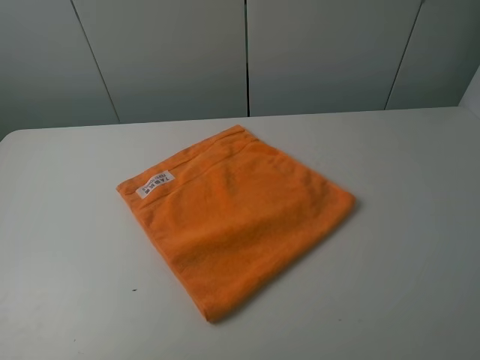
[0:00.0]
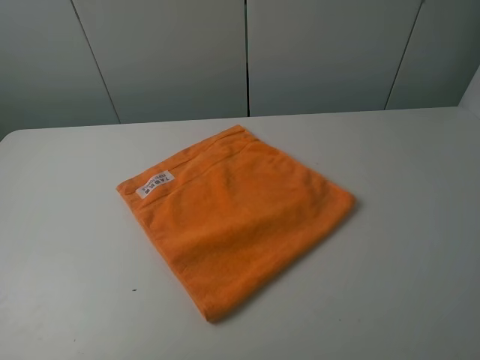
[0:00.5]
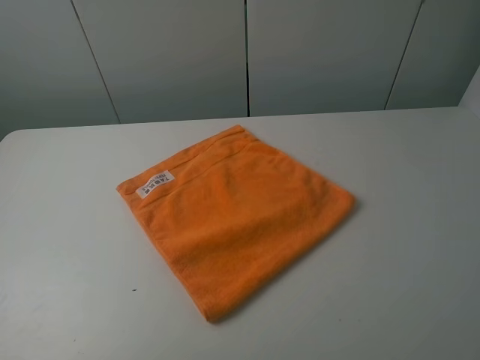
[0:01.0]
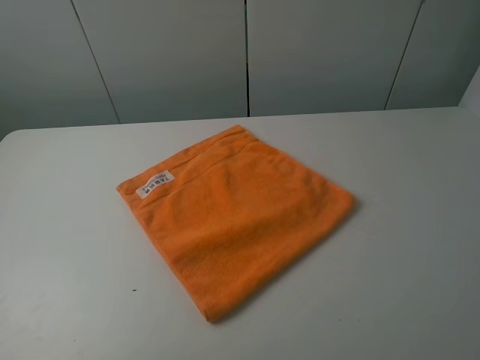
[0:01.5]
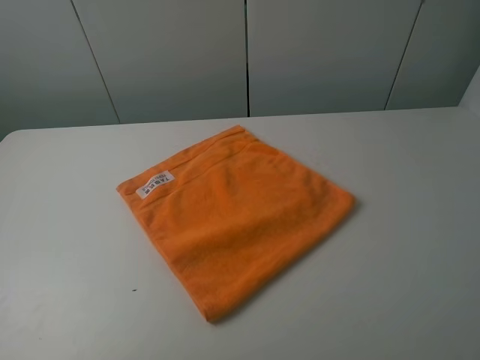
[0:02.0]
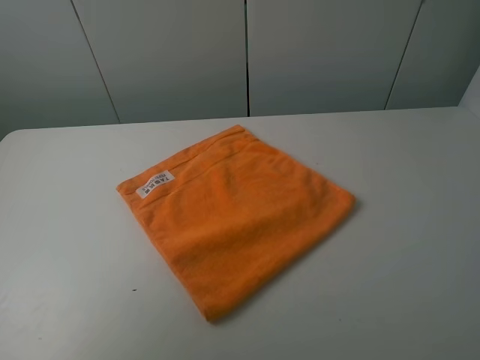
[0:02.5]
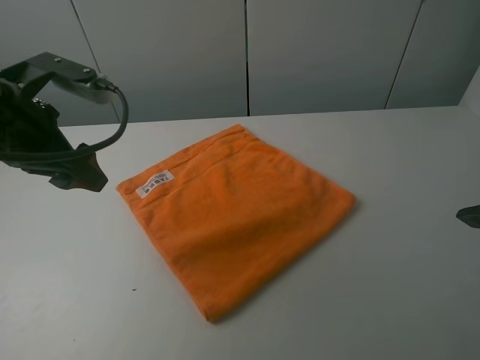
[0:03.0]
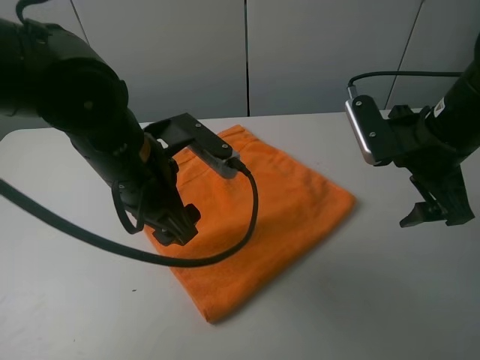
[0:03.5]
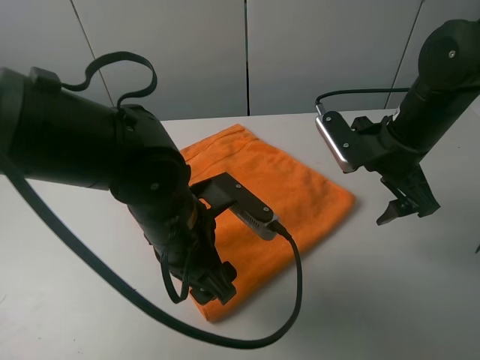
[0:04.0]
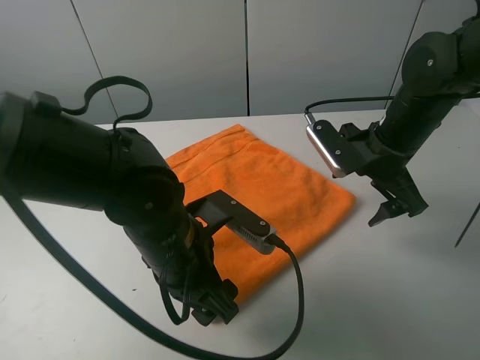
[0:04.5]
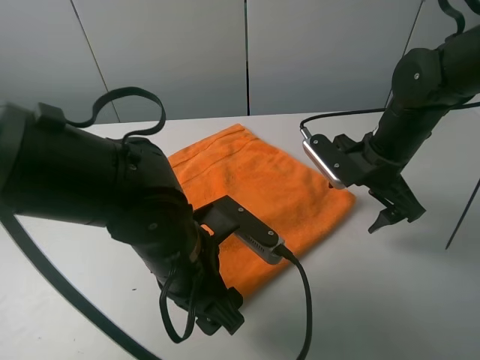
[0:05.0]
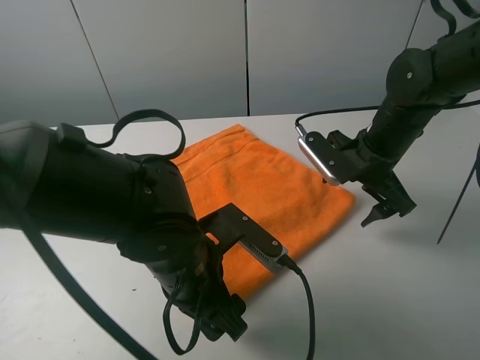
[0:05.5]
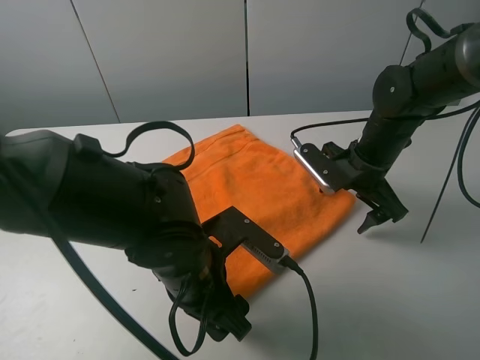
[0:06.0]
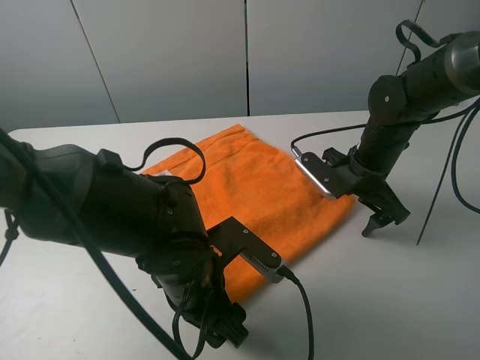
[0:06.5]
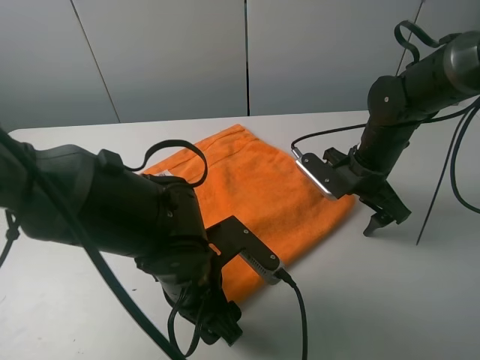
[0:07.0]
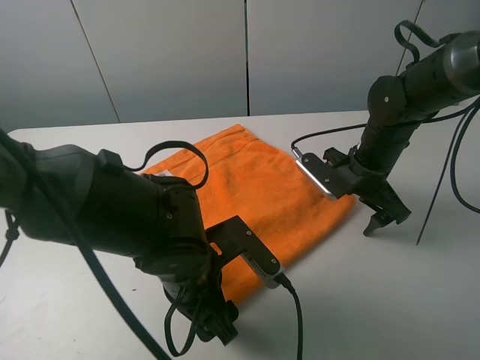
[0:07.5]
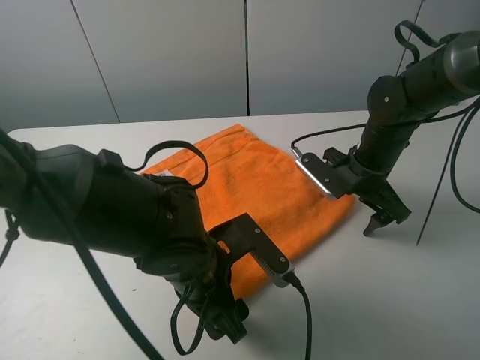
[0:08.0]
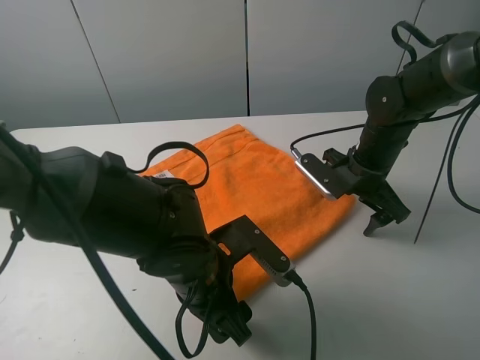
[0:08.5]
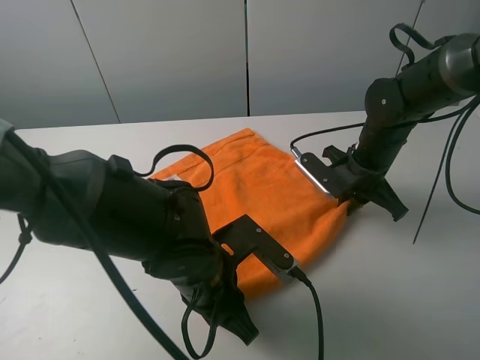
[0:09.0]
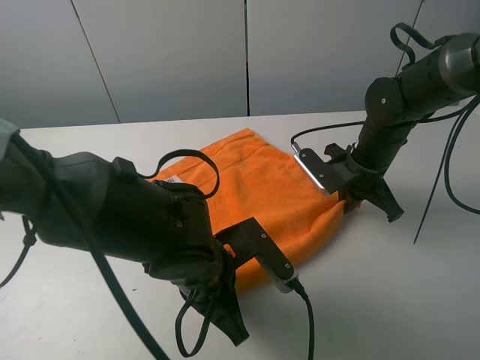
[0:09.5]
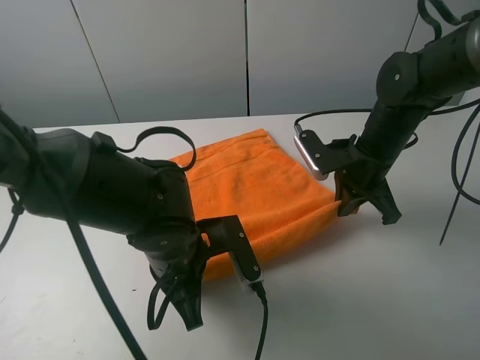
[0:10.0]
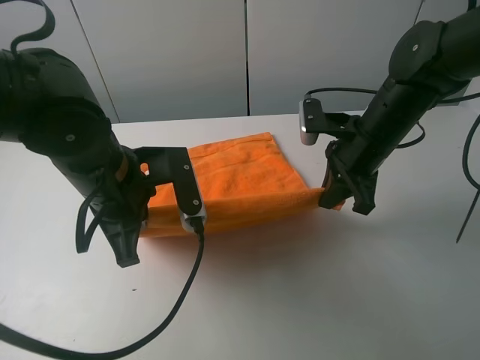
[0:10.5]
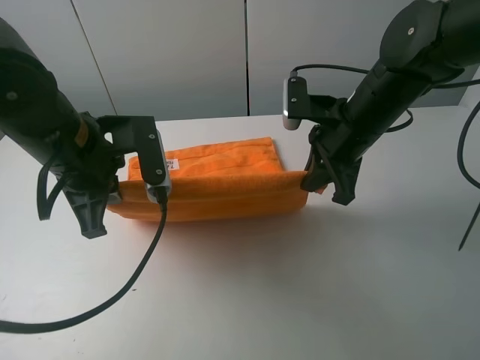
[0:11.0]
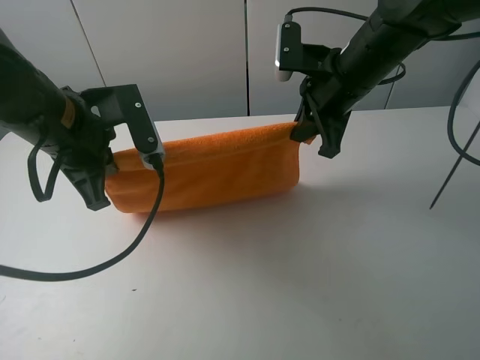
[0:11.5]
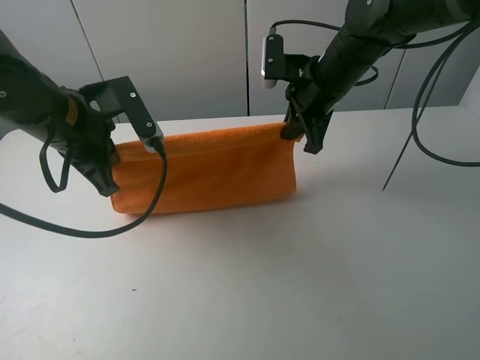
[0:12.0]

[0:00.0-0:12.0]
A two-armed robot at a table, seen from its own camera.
Task of the whole recording: fold the towels on the table.
Step, 0:00.0 to 0:09.5: Grasp the orange towel with the left gripper.
0:02.0 to 0:04.0: The left gripper moves to the right, forward and downward, some 35 cm. The right gripper goes some 30 cm forward.
0:04.0 to 0:06.0: The right gripper travels downward by approximately 5 cm.
0:06.0 to 0:08.0: The grippers make only small movements.
0:08.0 to 0:10.0: The left gripper closes; the right gripper closes up.
0:10.0 to 0:12.0: The right gripper moves upward, forward and to the left, about 10 cm. Meanwhile the left gripper moves to the left, upward and forward, approximately 20 cm.

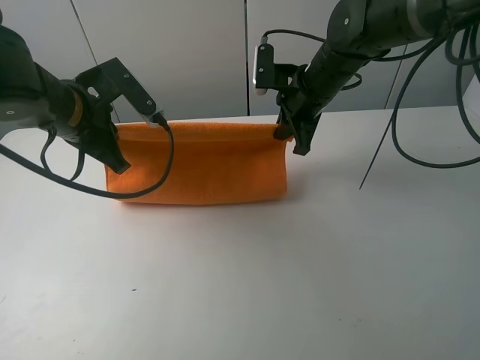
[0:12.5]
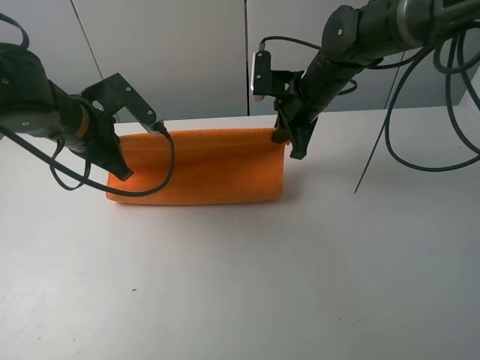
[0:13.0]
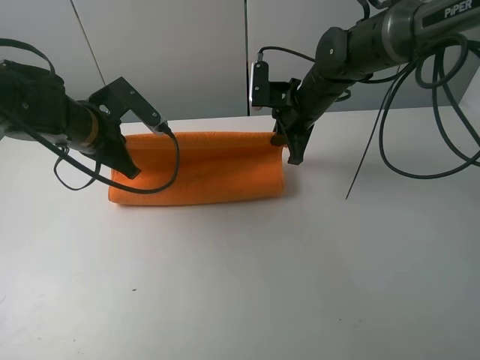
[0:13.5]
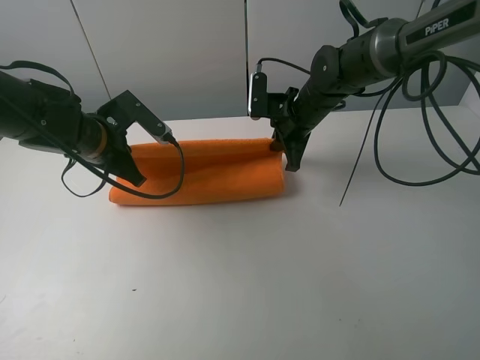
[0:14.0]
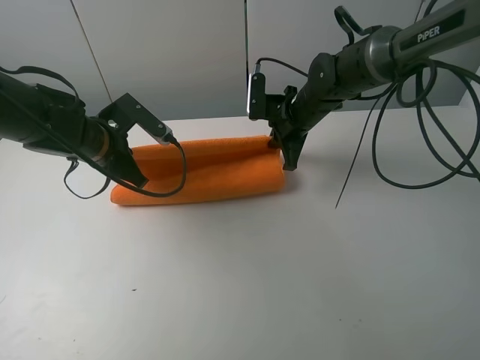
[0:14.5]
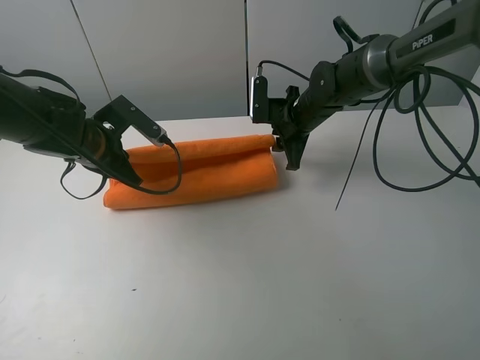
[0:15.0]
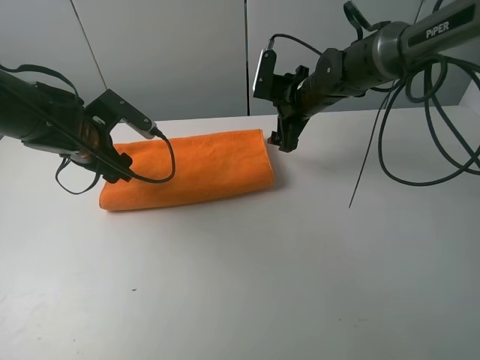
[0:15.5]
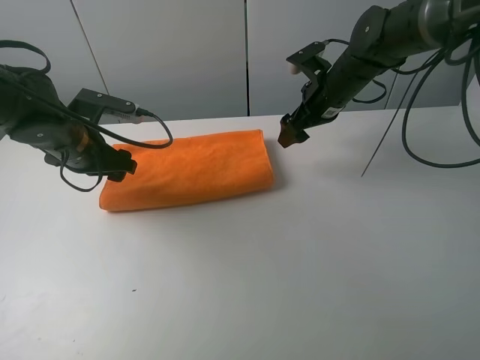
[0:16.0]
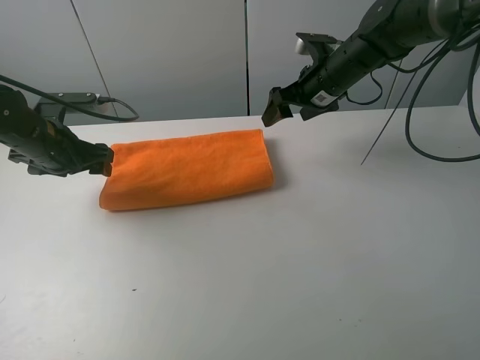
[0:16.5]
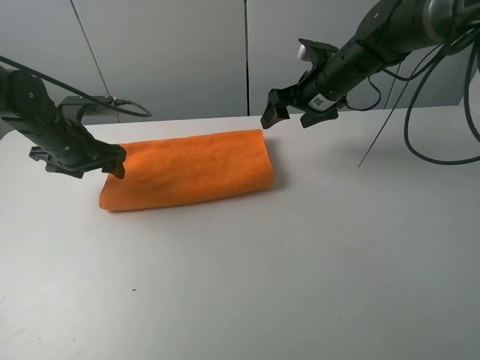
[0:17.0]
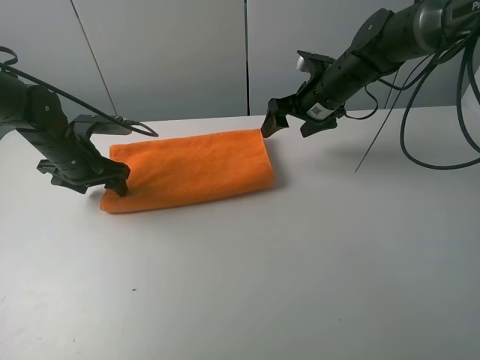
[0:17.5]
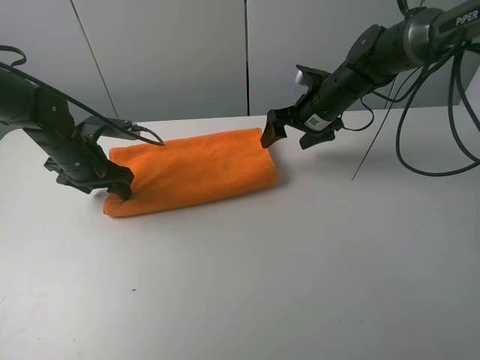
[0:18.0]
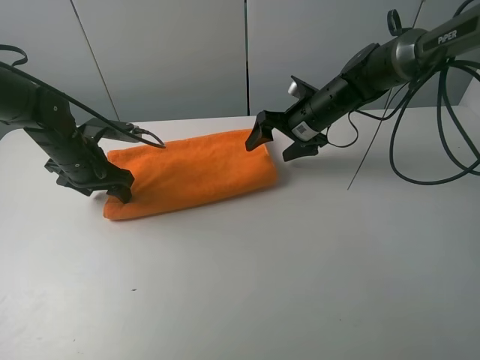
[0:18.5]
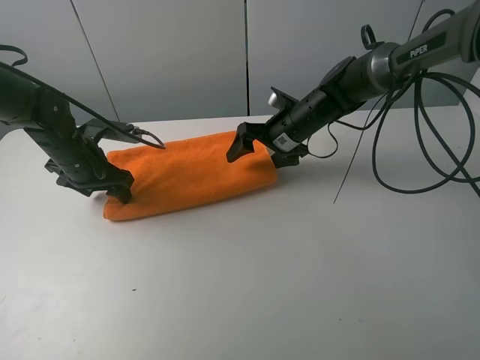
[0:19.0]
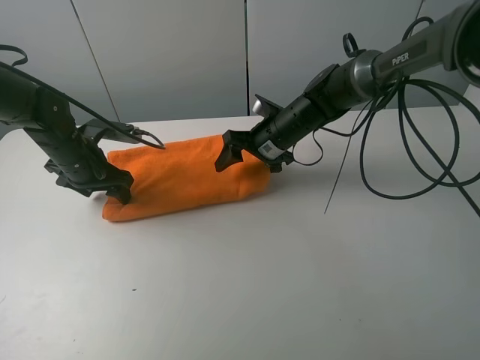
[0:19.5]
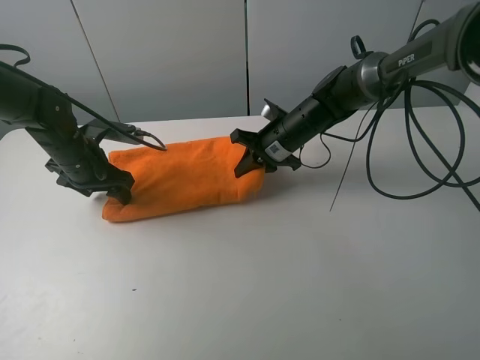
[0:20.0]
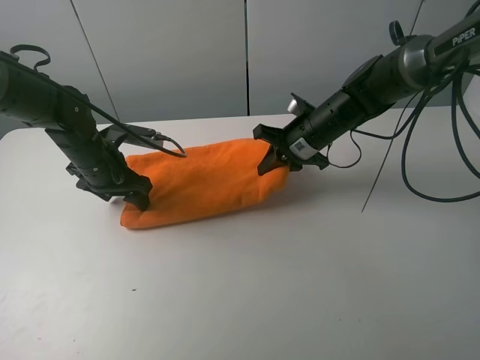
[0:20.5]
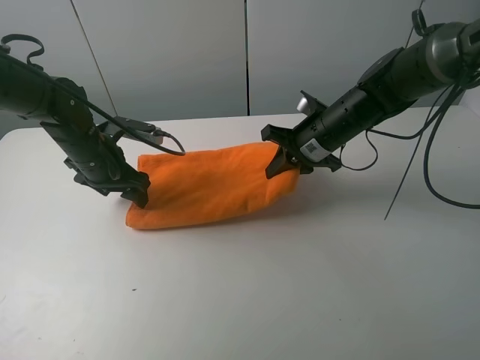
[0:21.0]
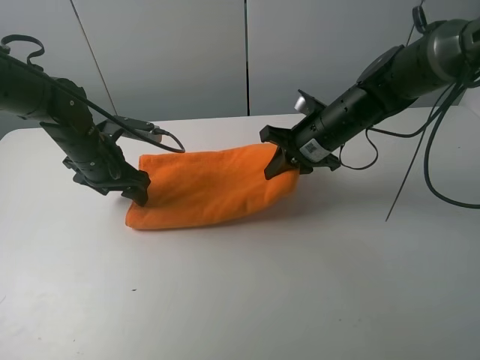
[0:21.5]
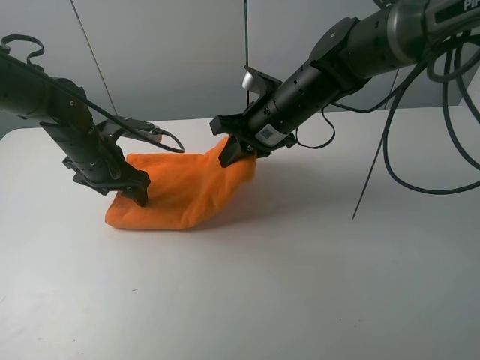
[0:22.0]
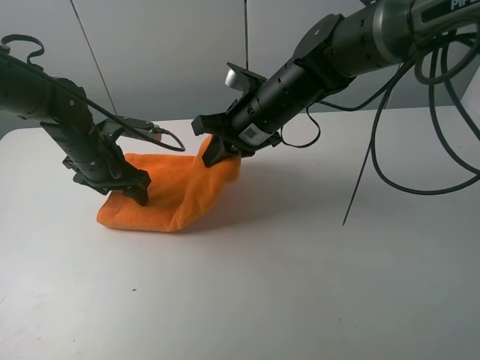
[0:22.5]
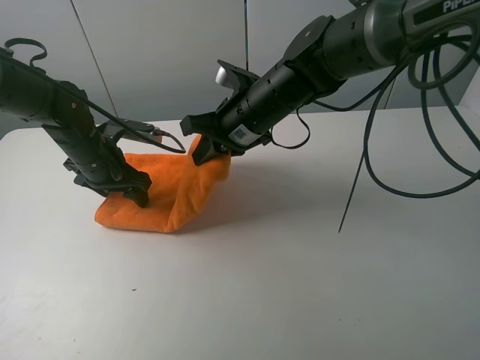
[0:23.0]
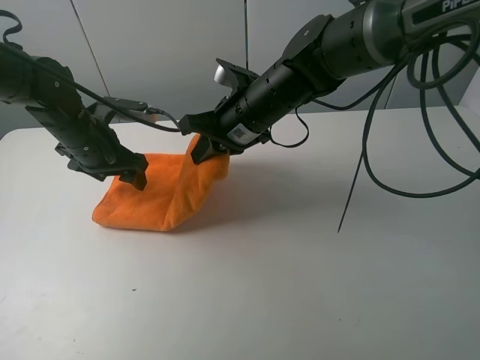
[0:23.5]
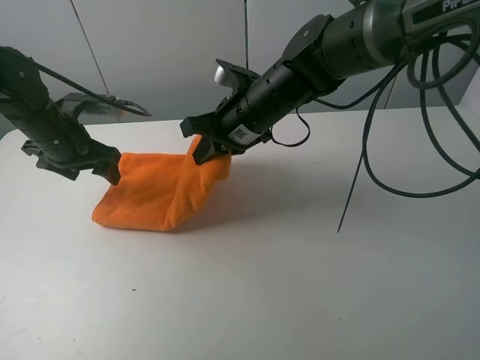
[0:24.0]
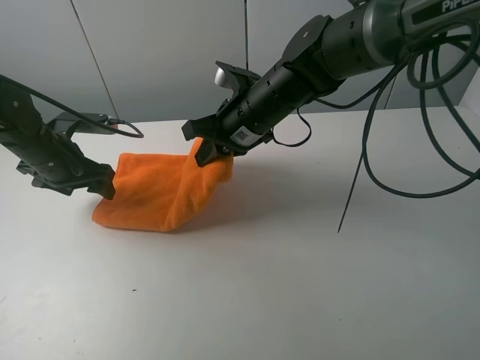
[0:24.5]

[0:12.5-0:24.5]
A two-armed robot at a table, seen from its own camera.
Task of the whole recording: fold the towels on the table.
Step, 0:12.5 to 0:15.5: Fold the orange towel upwards with the right gripper.
Step, 0:16.5 to 0:17.5: Press on the orange towel with the left gripper.
0:12.5 to 0:14.5: Both grippers move downward, approximately 5 cm.
0:14.5 to 0:16.5: The right gripper moves upward, about 5 cm, and opens its fingers; the left gripper shifts some 10 cm to the left, and opens its fingers.
0:16.5 to 0:18.5: The right gripper travels downward by approximately 5 cm. Meanwhile the left gripper ends up some 5 cm from where it was.
0:18.5 to 0:20.5: The right gripper closes its fingers.
0:20.5 to 0:22.5: The right gripper shifts approximately 10 cm to the left and upward.
0:22.5 to 0:24.5: The left gripper shifts roughly 5 cm to the left.

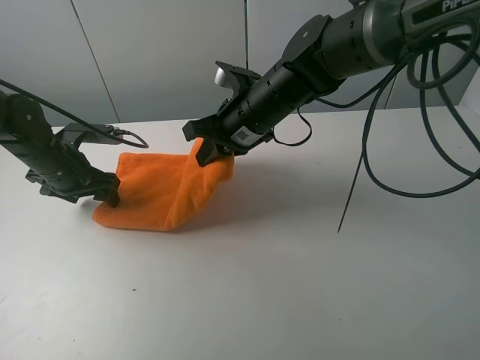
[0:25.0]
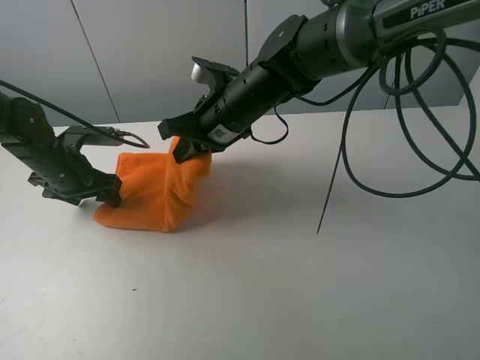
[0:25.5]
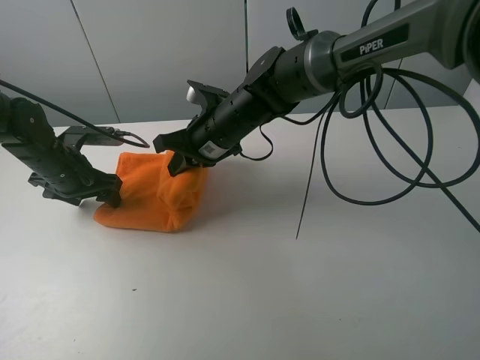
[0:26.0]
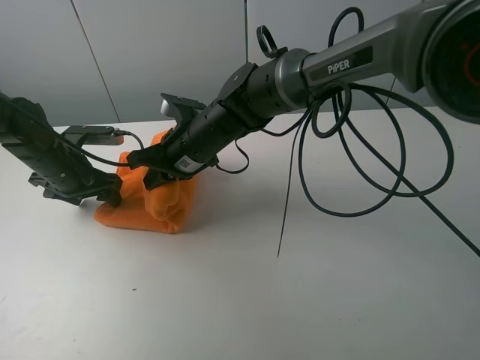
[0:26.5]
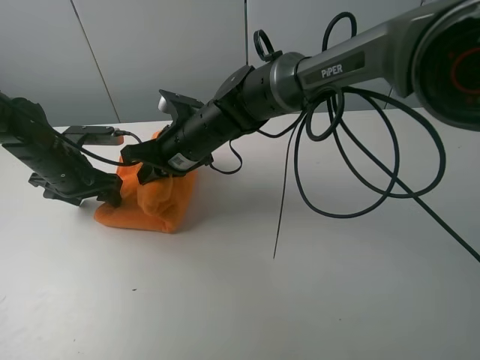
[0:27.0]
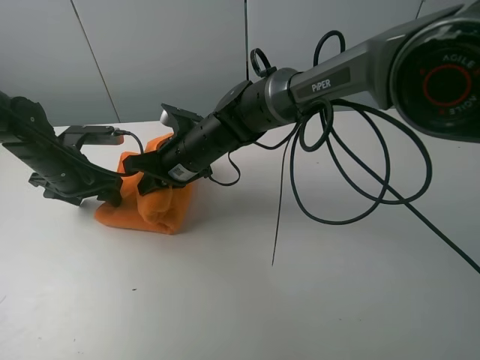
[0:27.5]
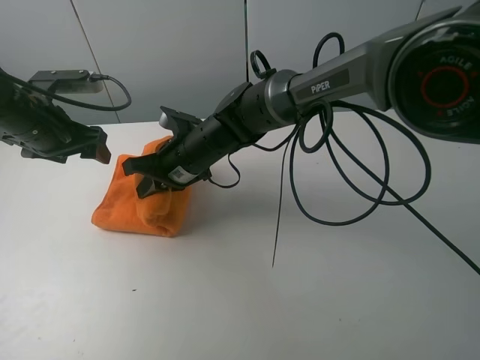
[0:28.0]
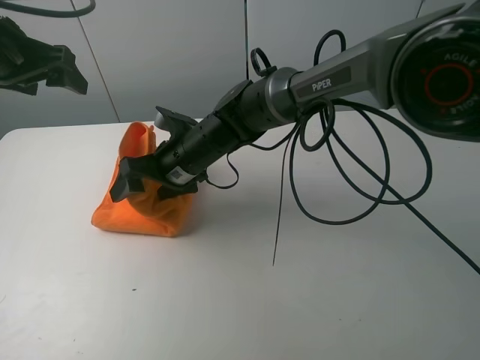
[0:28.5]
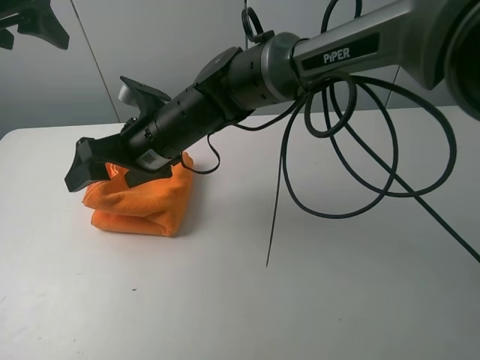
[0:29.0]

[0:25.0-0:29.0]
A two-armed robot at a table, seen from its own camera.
Task of the whole recording: fold the towels on the table.
0:25.0 to 0:27.0: The right gripper travels to the left and downward by about 10 cm.
0:27.0 to 0:29.0: The right gripper heads upward, covering some 5 cm, and opens. Meanwhile the left gripper travels upward by approximately 25 cm.
